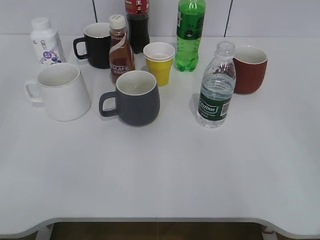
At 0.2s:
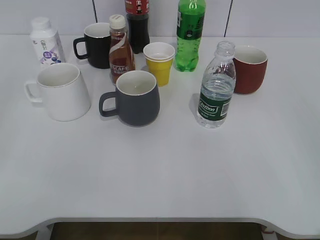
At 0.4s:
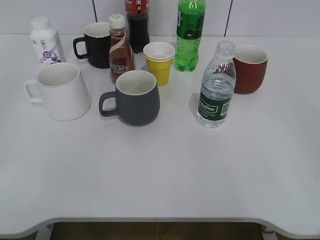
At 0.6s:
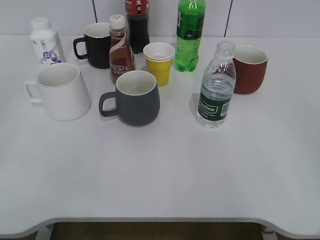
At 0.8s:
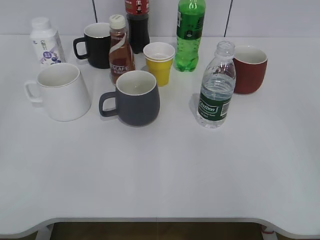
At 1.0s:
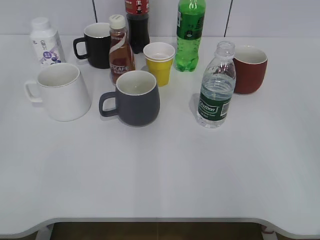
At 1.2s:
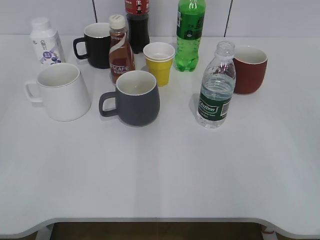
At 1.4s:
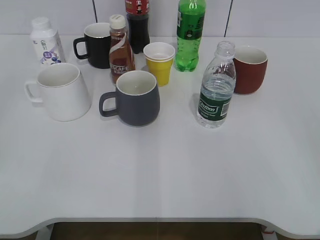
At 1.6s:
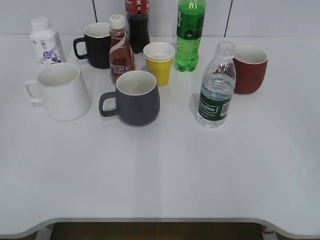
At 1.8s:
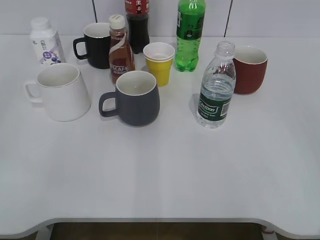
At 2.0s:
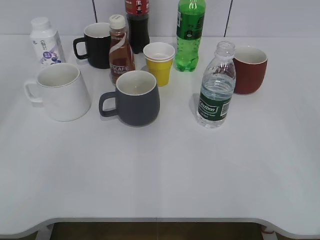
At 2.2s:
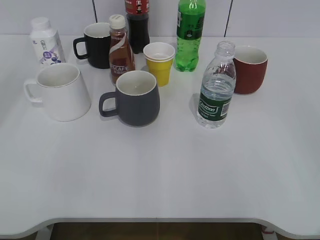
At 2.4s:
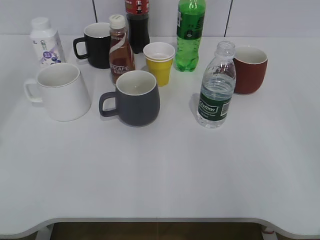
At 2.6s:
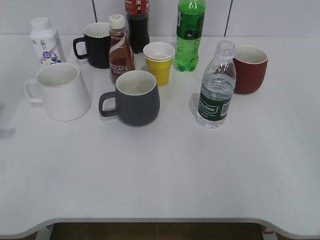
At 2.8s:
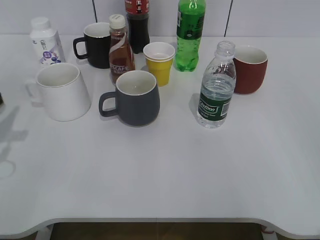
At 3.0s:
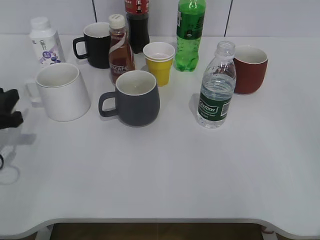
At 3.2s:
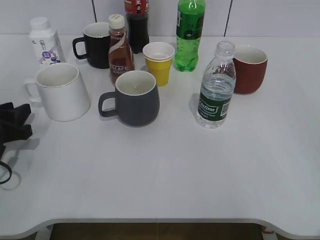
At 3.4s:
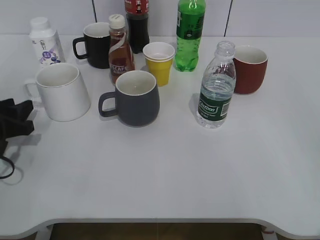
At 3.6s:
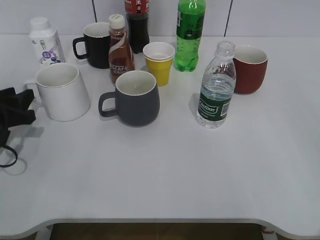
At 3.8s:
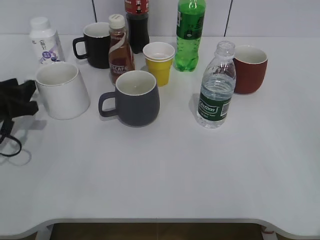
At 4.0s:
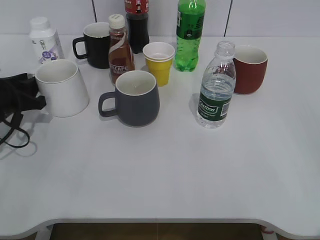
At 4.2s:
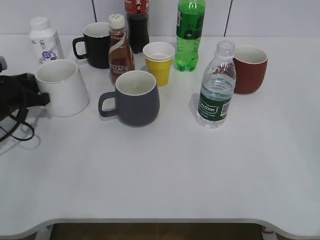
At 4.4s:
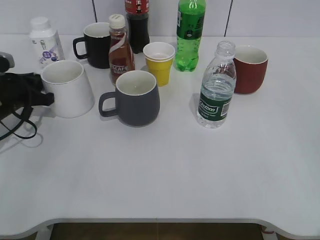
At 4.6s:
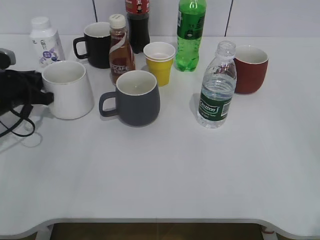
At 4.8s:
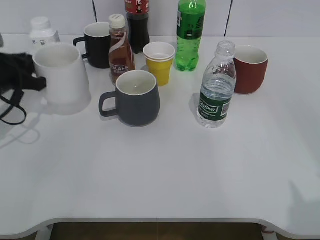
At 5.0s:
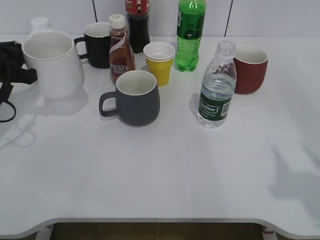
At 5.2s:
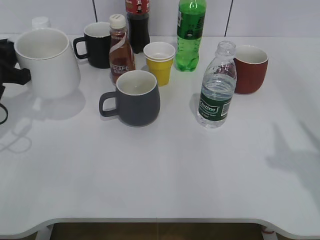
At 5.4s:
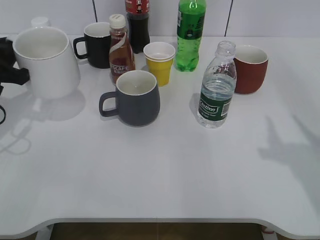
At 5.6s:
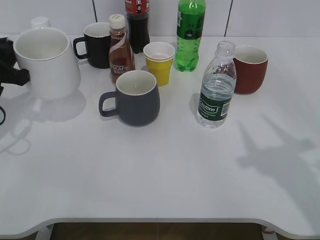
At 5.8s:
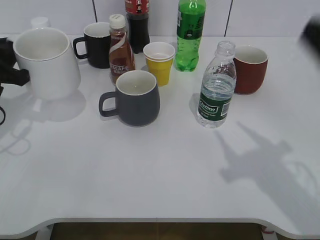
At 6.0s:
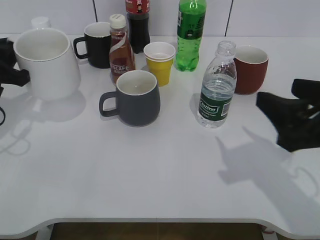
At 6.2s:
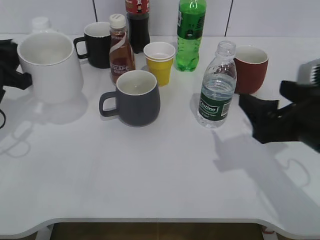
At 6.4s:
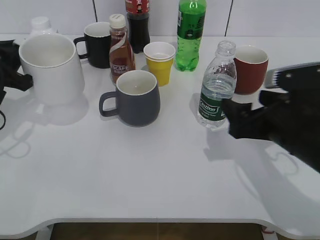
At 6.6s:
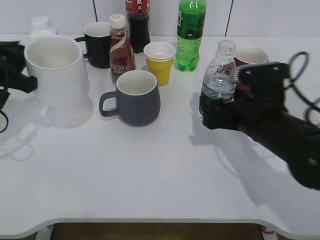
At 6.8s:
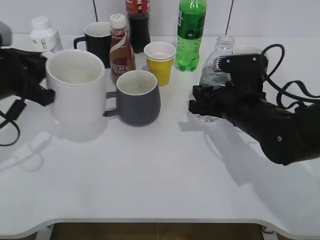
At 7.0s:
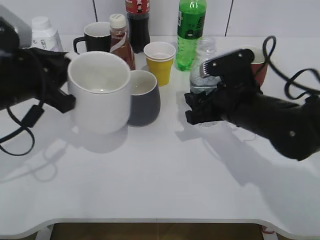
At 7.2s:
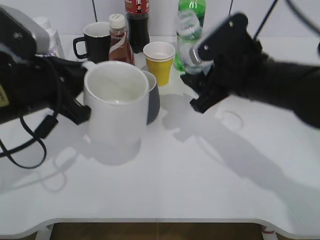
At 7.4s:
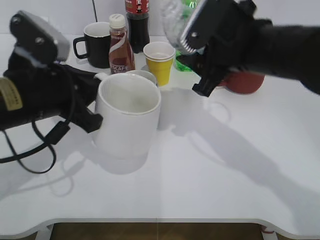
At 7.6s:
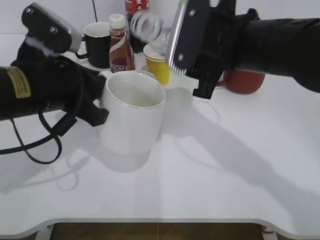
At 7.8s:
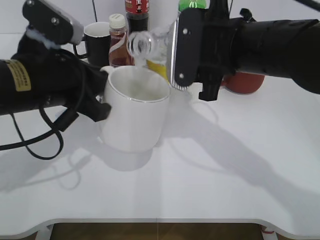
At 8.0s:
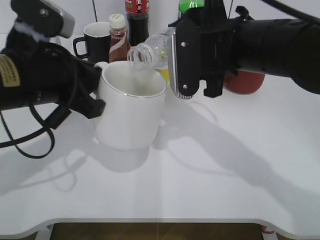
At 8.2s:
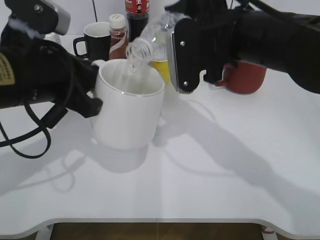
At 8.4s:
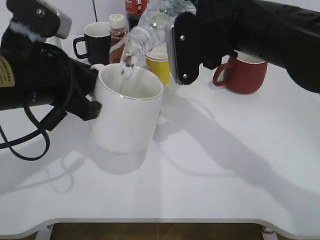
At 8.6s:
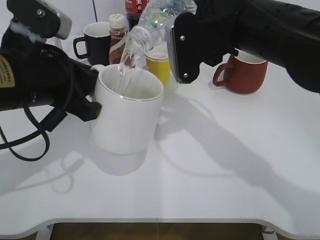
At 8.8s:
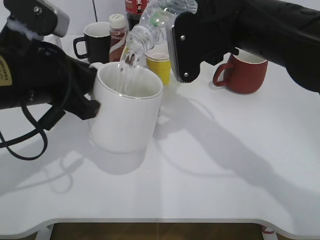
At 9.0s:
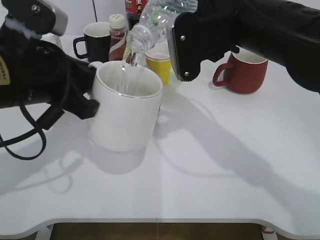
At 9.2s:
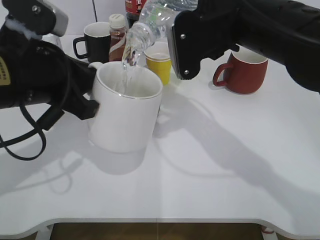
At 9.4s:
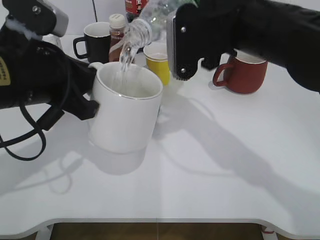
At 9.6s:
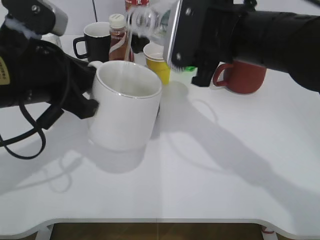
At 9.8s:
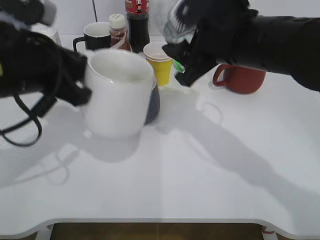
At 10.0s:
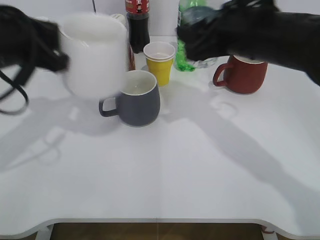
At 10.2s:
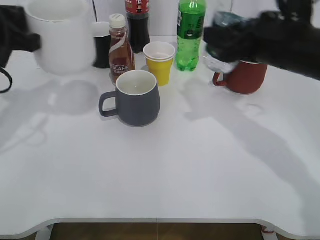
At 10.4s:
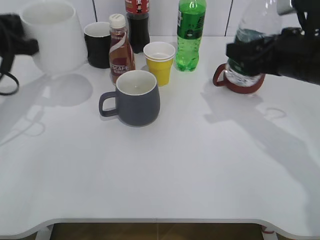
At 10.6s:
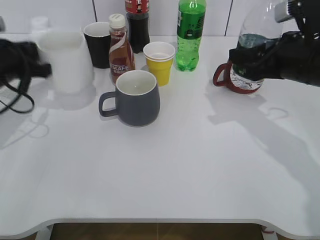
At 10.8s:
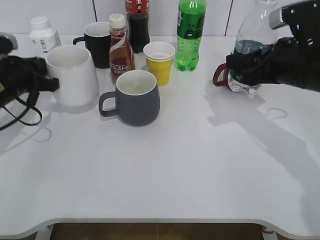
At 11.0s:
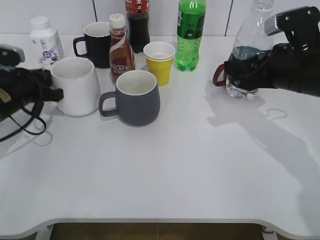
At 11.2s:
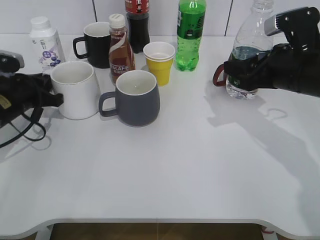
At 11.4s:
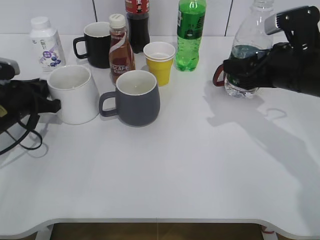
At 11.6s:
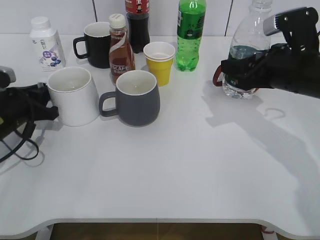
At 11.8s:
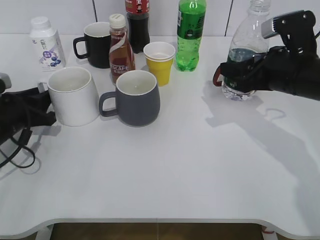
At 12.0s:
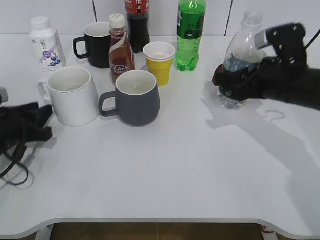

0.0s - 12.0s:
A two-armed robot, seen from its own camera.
Step, 1.8s - 4.4s: Grasp the white cup with left gripper.
Step, 4.6s - 5.6s: Lift the white cup with left gripper.
Step, 5.8s - 6.8s: Grasp the bottle with water with right gripper.
Step, 7.0s - 9.6s: Pour the water from bottle to cup with right gripper.
Step, 9.8s - 11.4s: Place the white cup on the table with left gripper.
1.6s - 3.0s: The left gripper is displaced forward and downward by roughly 30 cm.
3.0s - 4.4s: The left gripper travels forward by some 10 cm, and closes up.
4.4s - 6.0s: The right gripper heads forward and to the left, covering roughly 20 cm. The left gripper shifts some 10 cm upward and backward.
6.0s - 7.6s: The right gripper shifts approximately 15 cm to the left and forward, and opens, then closes again. Meanwhile the left gripper moves to the right and backward, roughly 15 cm.
9.0s - 10.4s: The left gripper heads to the left and forward, covering about 15 cm; the right gripper travels to the right and downward by approximately 10 cm.
10.4s - 12.0s: The left gripper goes about 15 cm downward, and opens. The right gripper goes some 5 cm downward.

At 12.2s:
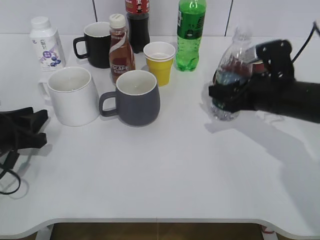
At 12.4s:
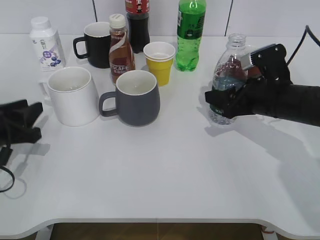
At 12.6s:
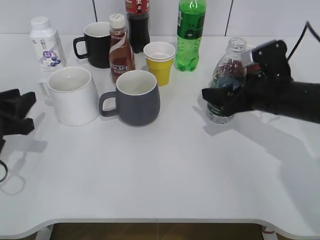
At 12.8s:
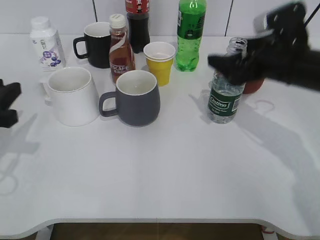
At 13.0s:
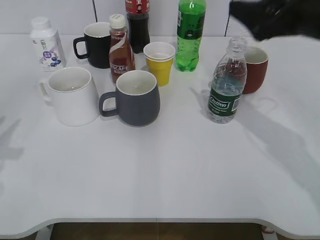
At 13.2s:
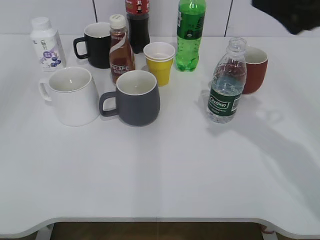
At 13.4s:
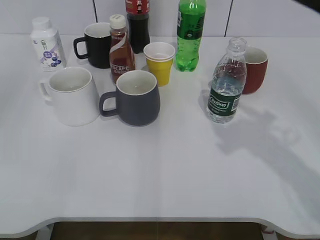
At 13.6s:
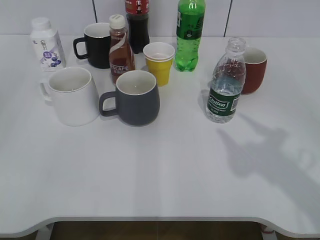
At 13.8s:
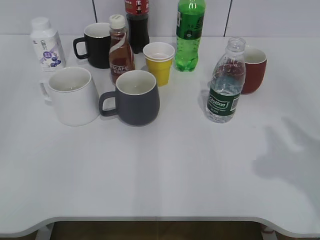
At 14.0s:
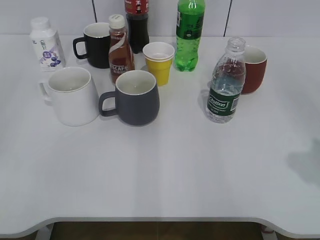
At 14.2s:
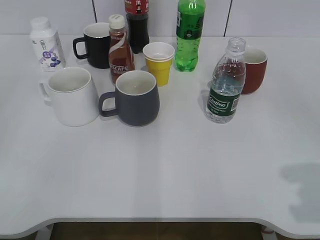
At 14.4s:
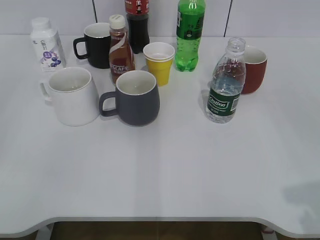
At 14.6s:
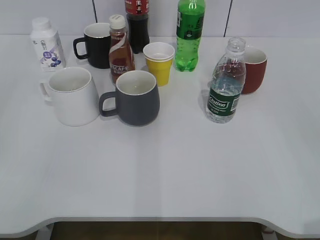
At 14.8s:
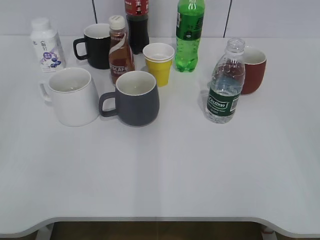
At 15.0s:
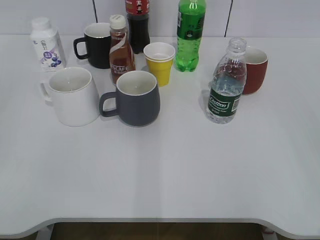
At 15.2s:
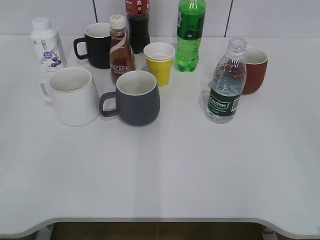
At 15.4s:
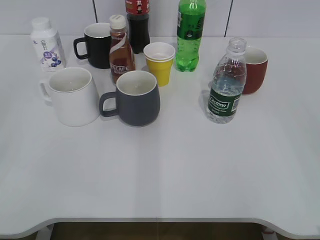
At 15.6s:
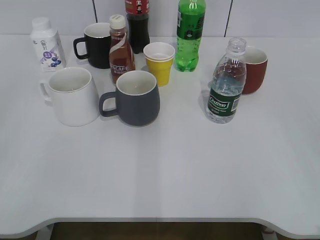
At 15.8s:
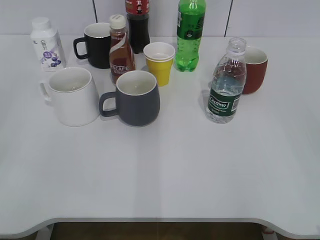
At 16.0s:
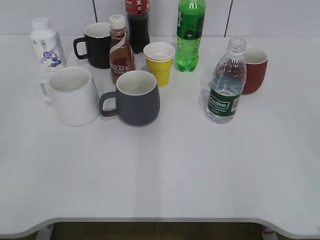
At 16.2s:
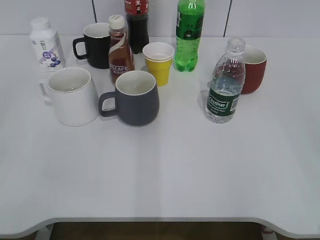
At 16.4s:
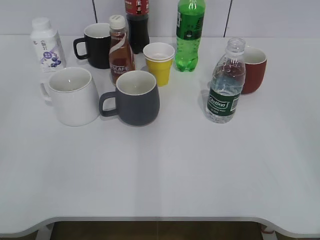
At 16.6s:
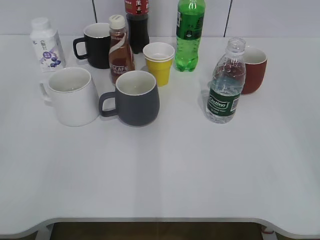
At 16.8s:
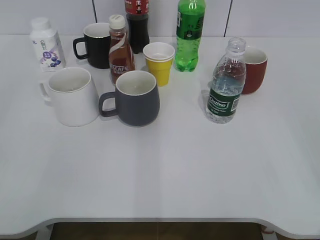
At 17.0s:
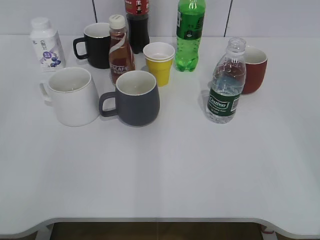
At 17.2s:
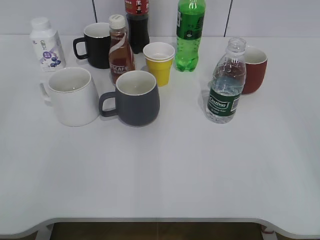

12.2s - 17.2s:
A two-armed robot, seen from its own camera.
12.2s - 13.8s: The left gripper travels backward and upward by roughly 30 cm, and opens its fingers, while the right gripper travels backward, upward and to the right by about 25 cm, and opens, then closes once more.
13.8s - 15.6s: The right gripper travels backward by about 15 cm.

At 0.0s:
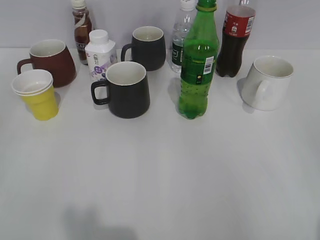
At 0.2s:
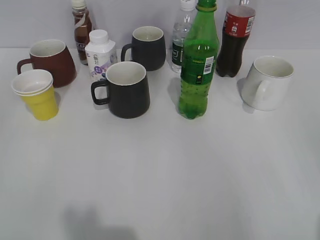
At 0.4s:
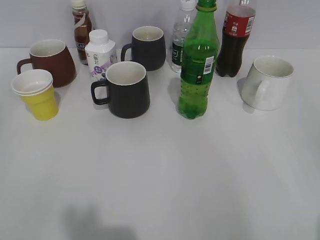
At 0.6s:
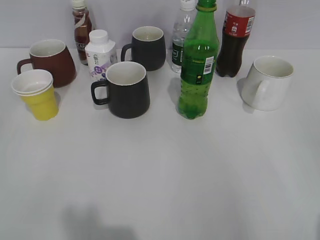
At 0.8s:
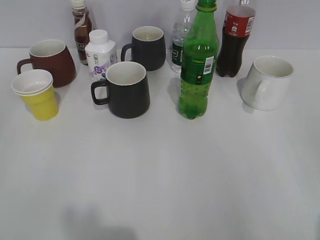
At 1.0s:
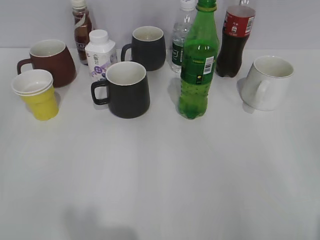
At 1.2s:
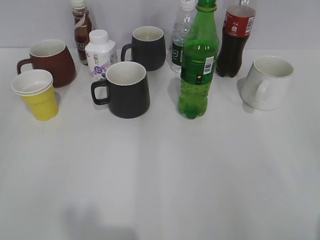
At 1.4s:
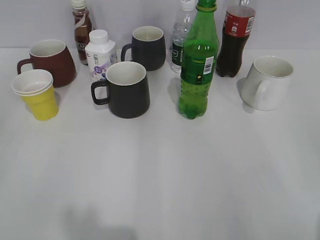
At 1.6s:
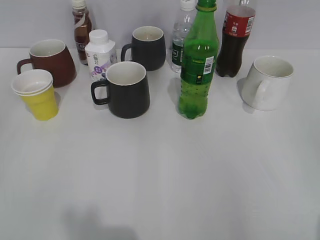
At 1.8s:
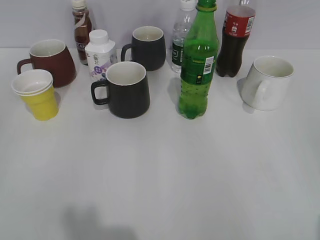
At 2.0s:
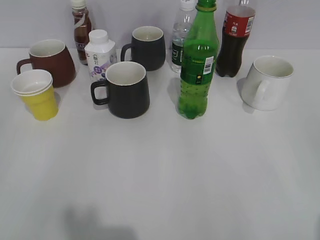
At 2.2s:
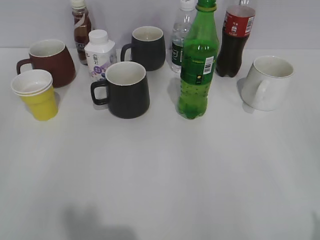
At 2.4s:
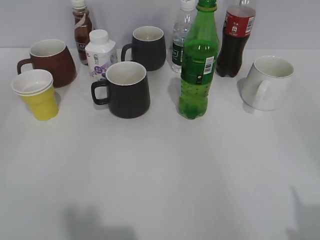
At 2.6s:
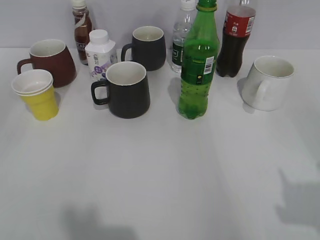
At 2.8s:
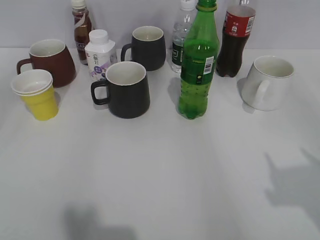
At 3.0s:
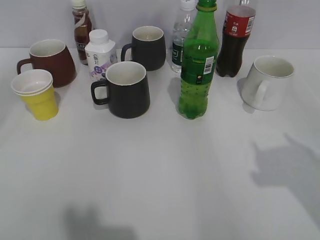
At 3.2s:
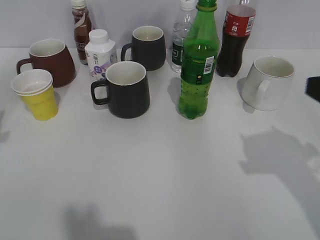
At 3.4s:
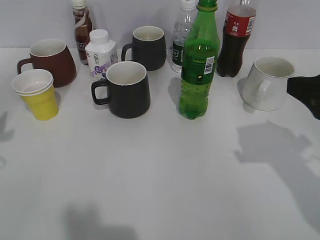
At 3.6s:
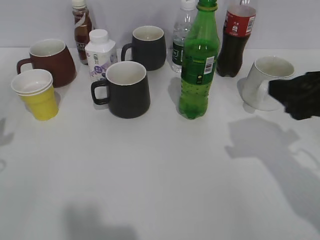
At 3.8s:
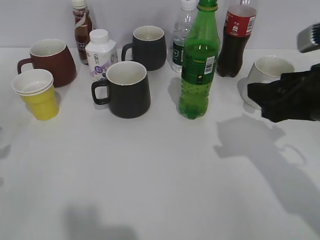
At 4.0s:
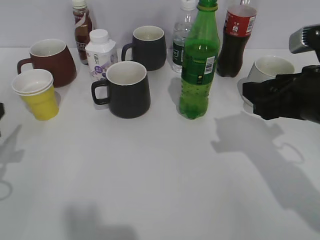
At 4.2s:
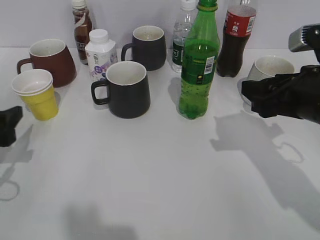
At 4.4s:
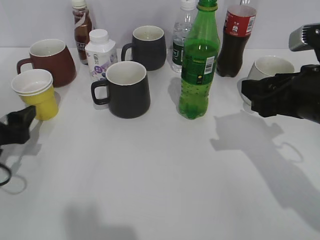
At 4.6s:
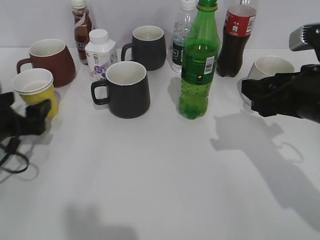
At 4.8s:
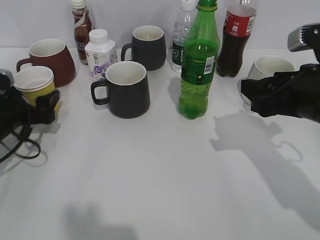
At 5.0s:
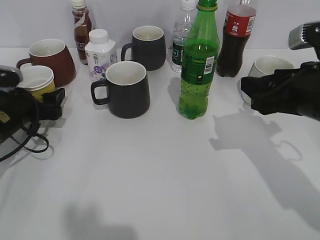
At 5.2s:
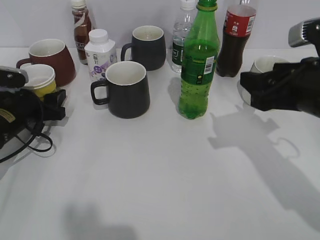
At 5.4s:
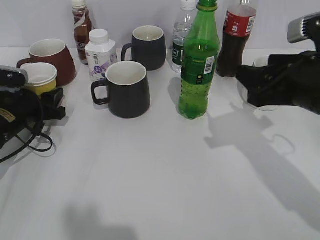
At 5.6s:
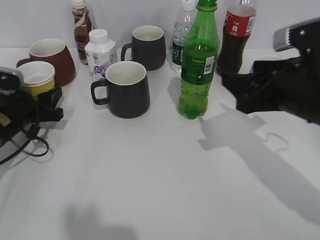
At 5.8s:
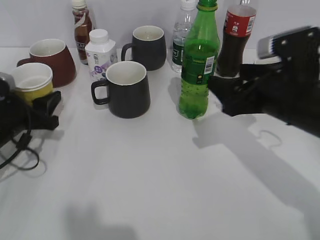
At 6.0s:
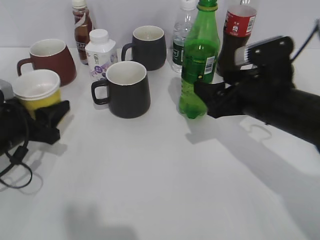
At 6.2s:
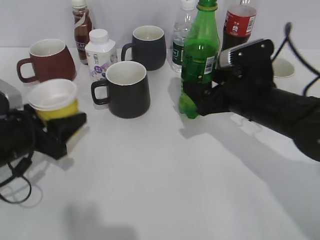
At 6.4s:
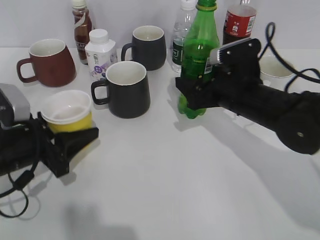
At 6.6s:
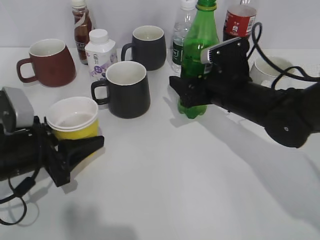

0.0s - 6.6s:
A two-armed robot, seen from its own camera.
Step, 2.0s - 5.0s: Grasp the yellow paper cup with left gripper.
1.6s - 3.2s: Both grippers travel together forward, roughly 20 cm. The left gripper opens its fingers.
3.2s - 5.0s: The right gripper travels forward, downward and to the left by about 10 cm; the left gripper heads downward and forward, covering some 20 cm, and opens its fingers.
5.0s - 6.6s: The left gripper moves backward, about 10 cm, and closes up; the right gripper travels forward, downward and to the left by roughly 15 cm, and opens up.
